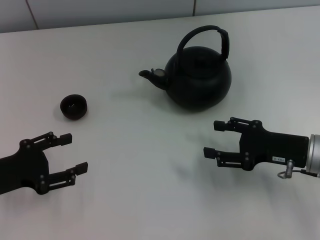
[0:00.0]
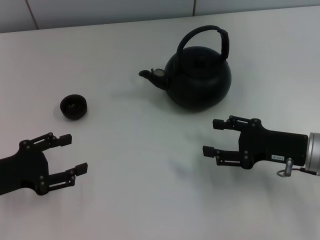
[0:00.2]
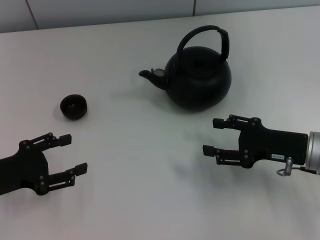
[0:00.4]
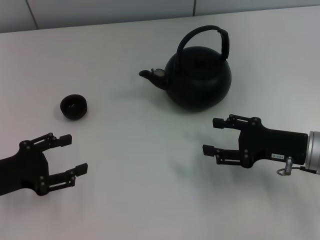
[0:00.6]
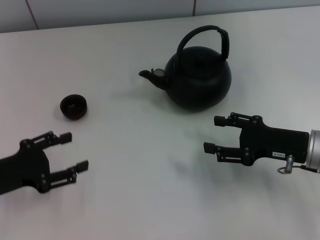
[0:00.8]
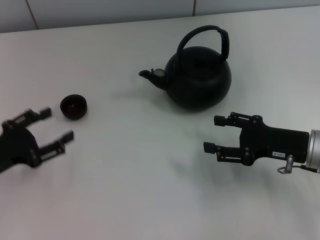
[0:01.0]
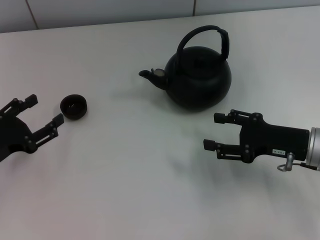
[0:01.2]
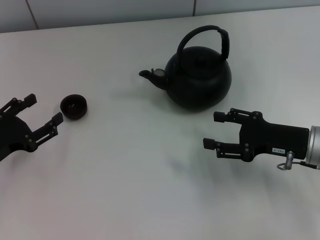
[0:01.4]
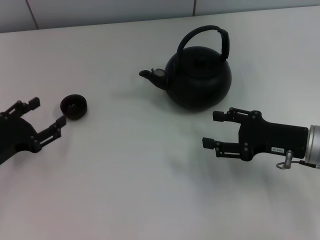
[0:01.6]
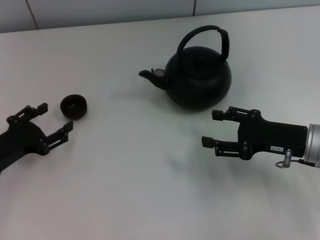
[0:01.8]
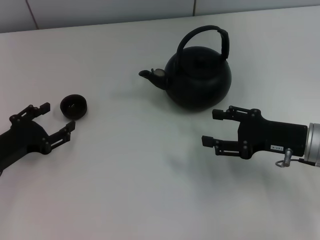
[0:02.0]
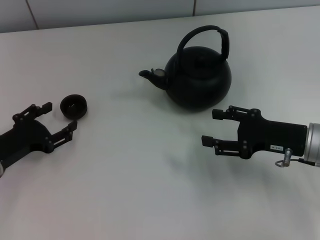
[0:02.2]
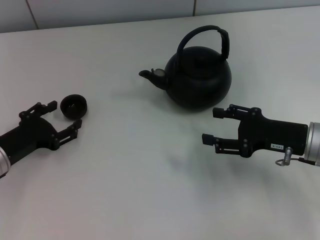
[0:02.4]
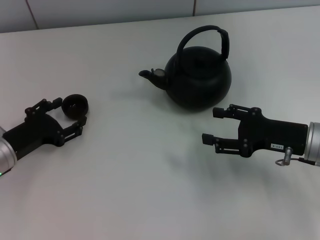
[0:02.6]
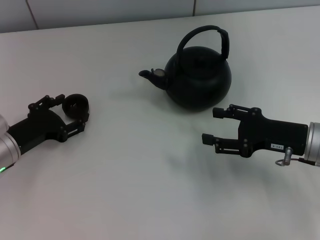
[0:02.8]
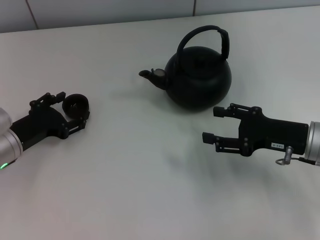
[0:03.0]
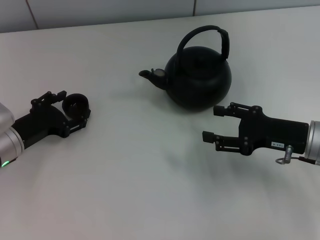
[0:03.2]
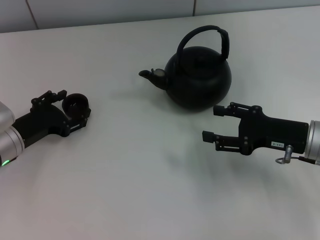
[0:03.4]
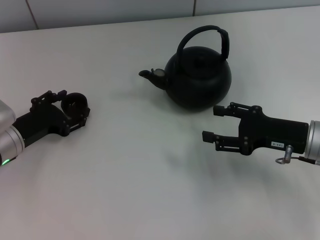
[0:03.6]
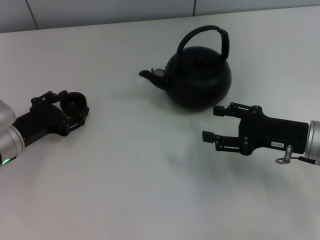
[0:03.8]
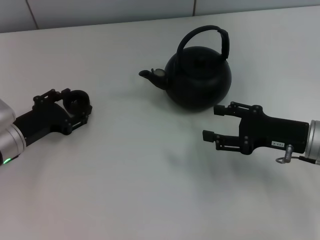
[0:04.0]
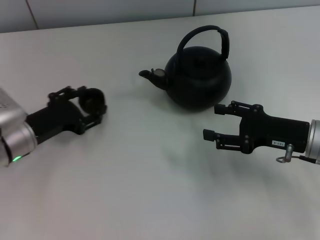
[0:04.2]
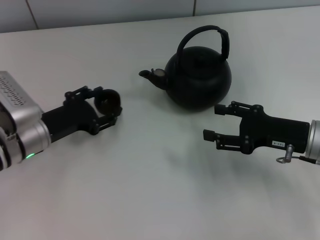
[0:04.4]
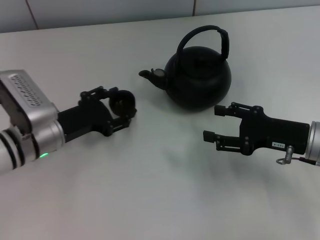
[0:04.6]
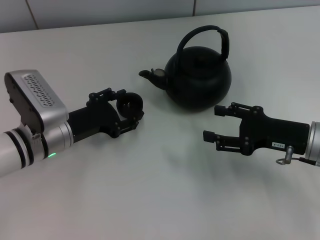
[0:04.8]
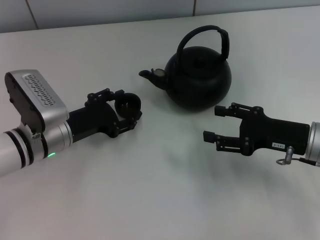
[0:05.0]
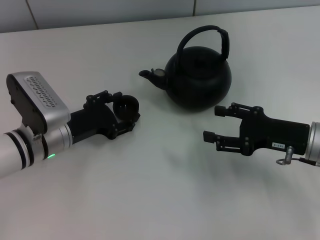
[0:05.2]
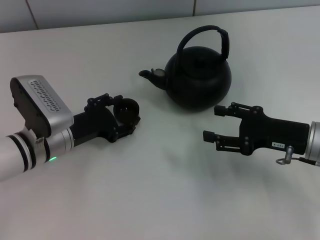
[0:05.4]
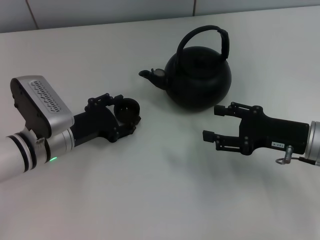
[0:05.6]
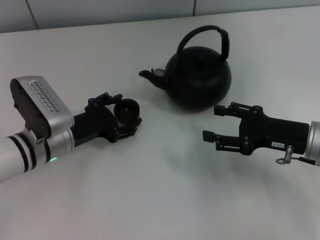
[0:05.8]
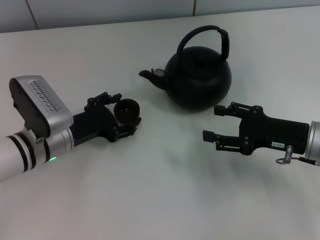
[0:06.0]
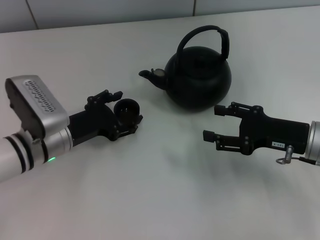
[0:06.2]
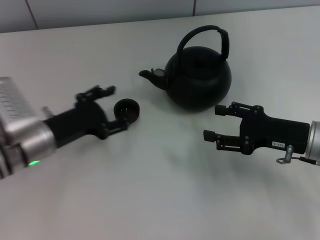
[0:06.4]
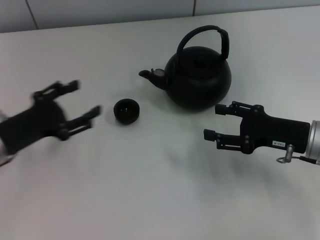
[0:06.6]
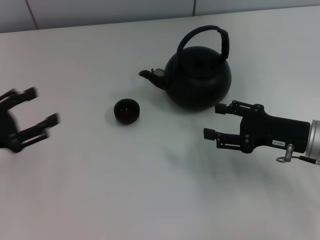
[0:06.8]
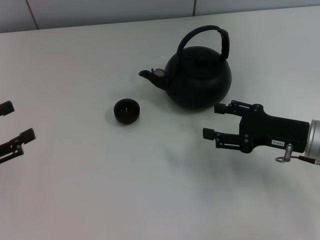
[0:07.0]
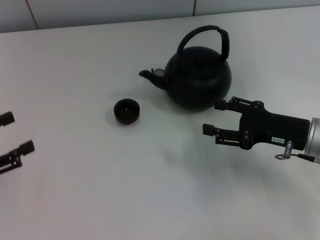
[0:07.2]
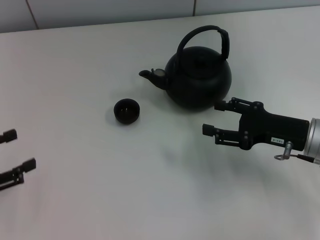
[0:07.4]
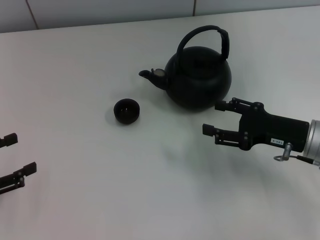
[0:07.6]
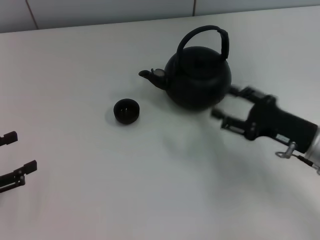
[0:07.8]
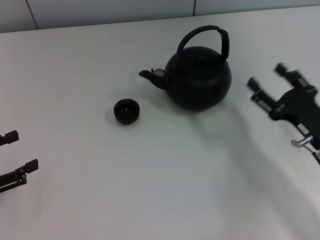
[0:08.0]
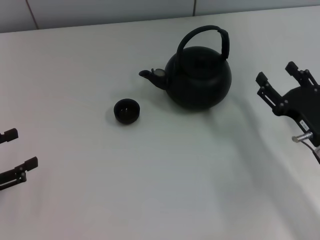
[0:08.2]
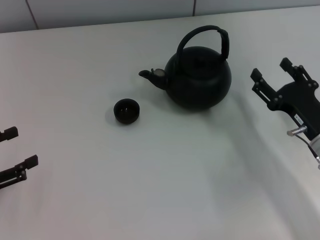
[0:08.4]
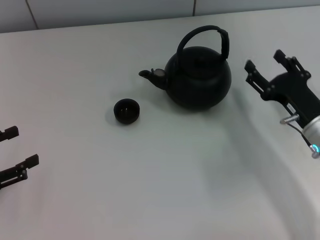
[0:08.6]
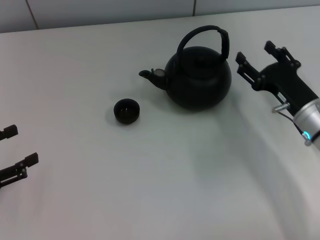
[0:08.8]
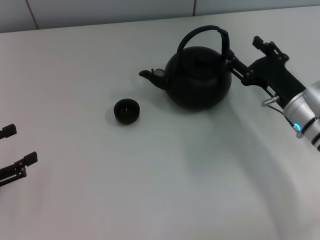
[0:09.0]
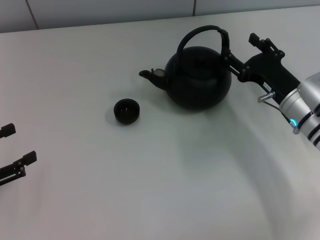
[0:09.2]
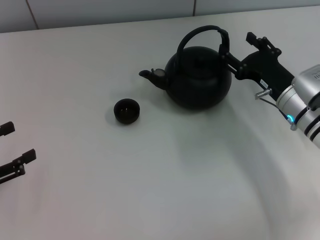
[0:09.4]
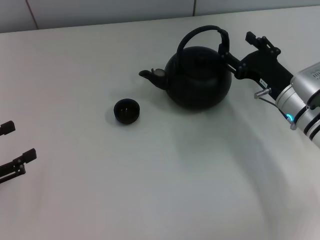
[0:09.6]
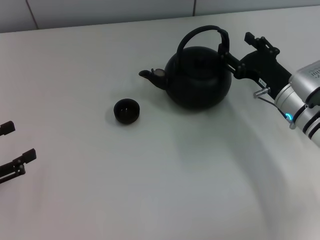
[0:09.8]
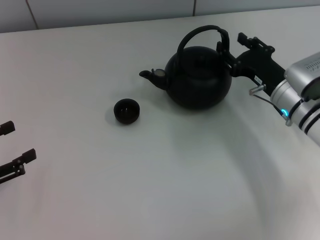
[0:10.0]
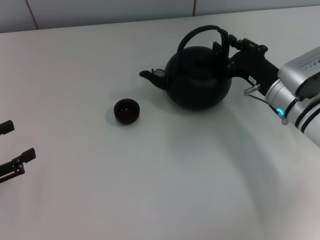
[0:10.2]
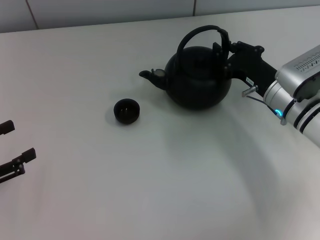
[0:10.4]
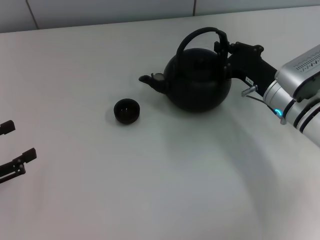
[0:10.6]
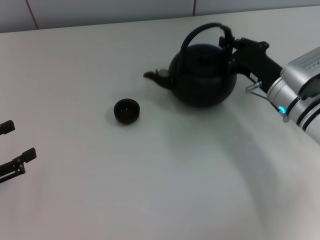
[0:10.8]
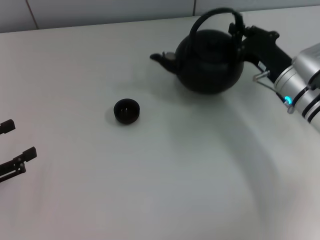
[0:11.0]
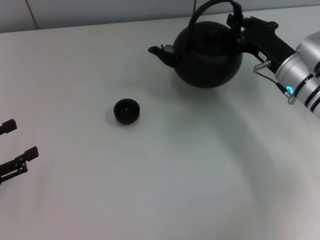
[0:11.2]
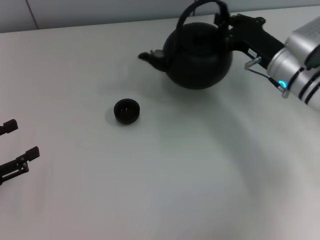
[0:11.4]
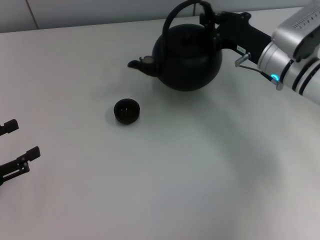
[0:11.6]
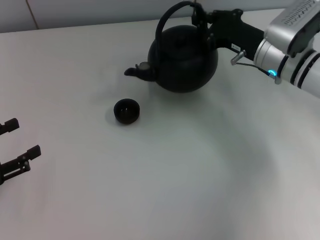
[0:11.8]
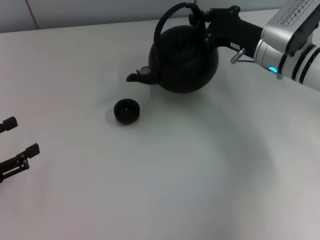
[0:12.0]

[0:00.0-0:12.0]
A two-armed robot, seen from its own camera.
Task of the whole recording: Grasp the handle of the teapot with one hand and pour tea into the teacup.
Step, 0.0 to 4.0 s: Pick up the teacup with the left gripper.
Step, 4.2 to 6.4 s: Place the teacup in the center of view with the left gripper.
Step, 6.6 to 11.0 s: Pick up the teapot with the right gripper.
1.6 to 3.0 s: The left gripper ends up roughly 5 cm from where it was.
3.0 to 4.4 s: There are only small adjustments of the grippers.
4.4 to 6.0 s: The grippers stay close to where they were, moving slightly.
6.0 to 7.6 s: The left gripper moves to the left and backward, approximately 20 cm.
9.0 to 10.4 s: The right gripper closes its fingers.
10.4 to 12.0 s: The right gripper heads forward and upward, covering roughly 10 cm, and closes.

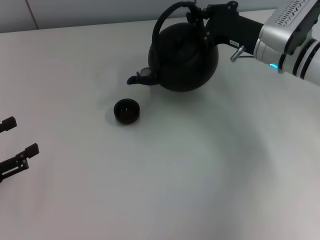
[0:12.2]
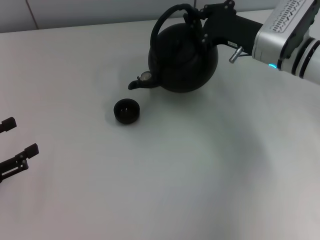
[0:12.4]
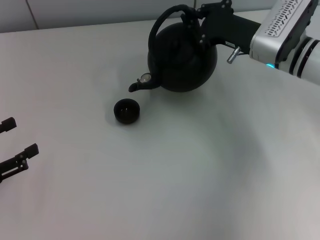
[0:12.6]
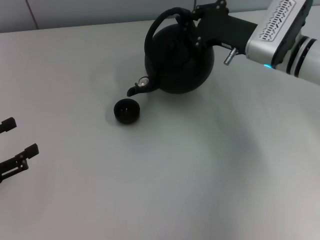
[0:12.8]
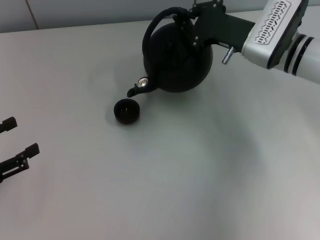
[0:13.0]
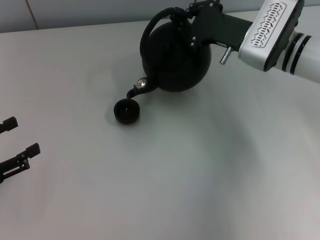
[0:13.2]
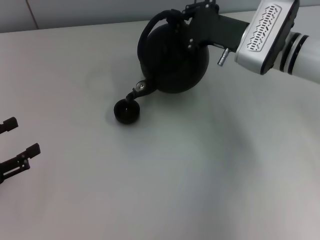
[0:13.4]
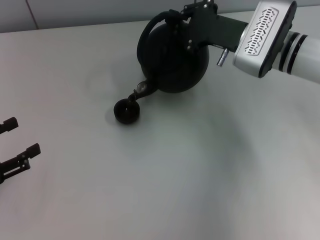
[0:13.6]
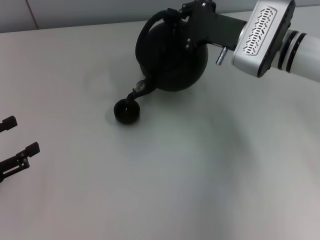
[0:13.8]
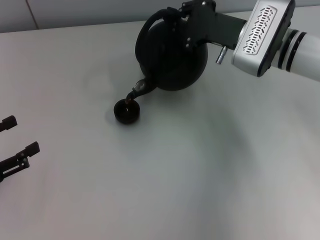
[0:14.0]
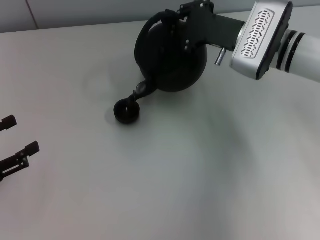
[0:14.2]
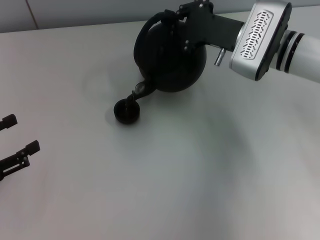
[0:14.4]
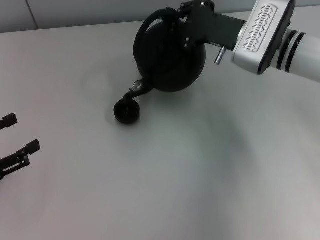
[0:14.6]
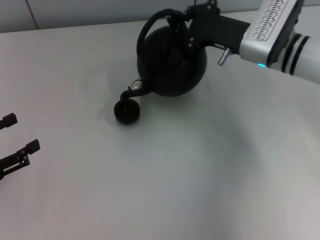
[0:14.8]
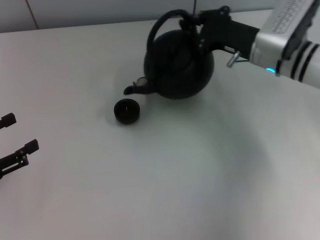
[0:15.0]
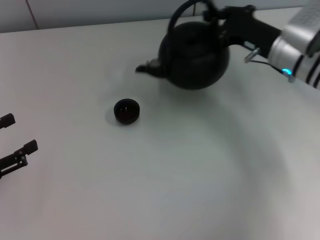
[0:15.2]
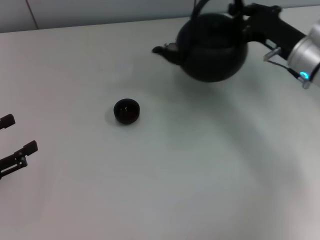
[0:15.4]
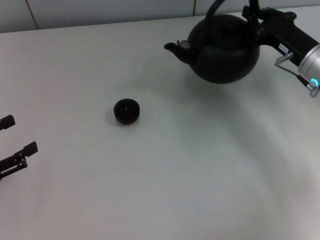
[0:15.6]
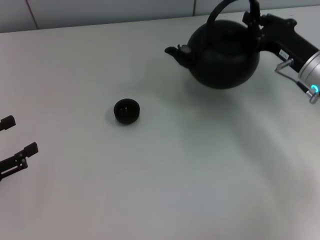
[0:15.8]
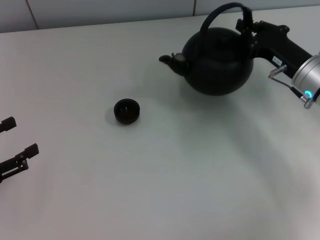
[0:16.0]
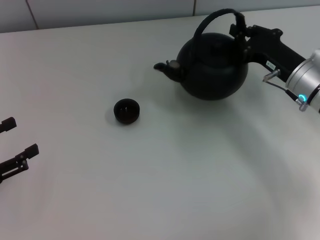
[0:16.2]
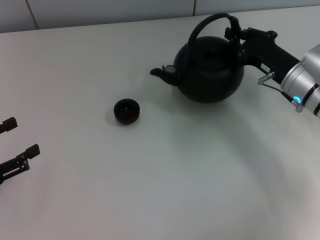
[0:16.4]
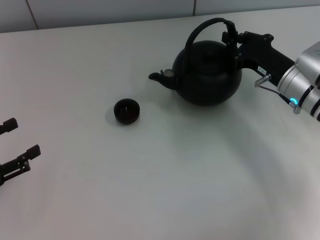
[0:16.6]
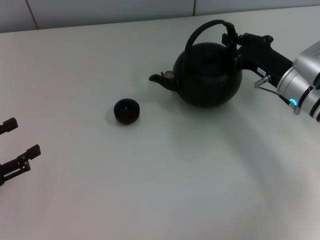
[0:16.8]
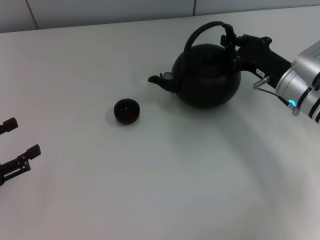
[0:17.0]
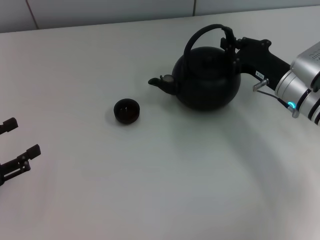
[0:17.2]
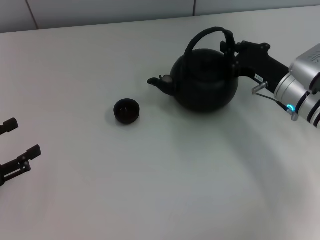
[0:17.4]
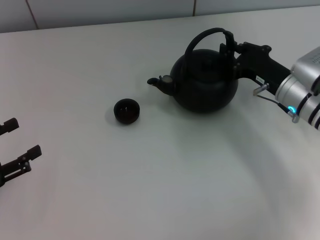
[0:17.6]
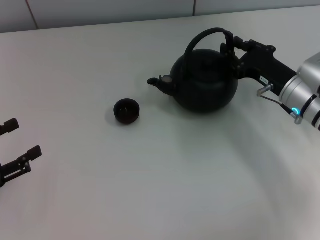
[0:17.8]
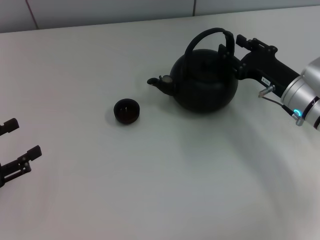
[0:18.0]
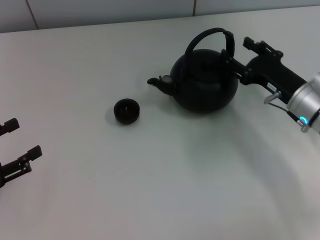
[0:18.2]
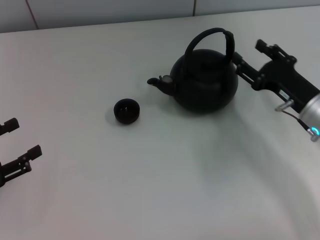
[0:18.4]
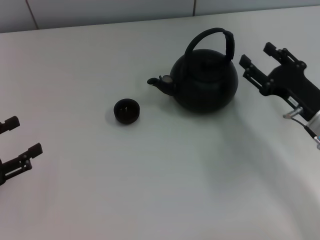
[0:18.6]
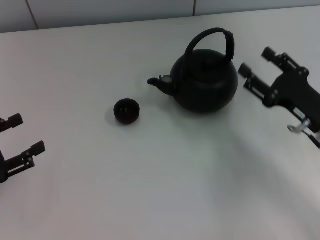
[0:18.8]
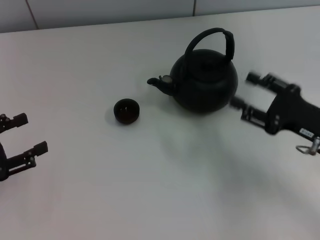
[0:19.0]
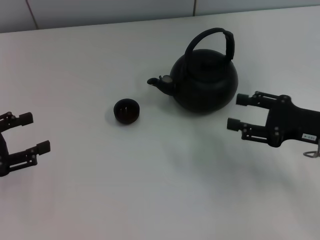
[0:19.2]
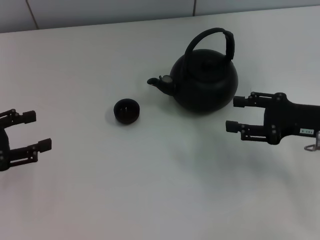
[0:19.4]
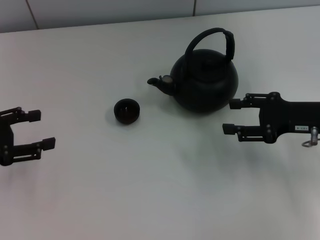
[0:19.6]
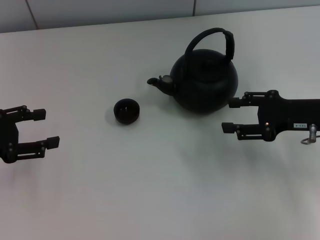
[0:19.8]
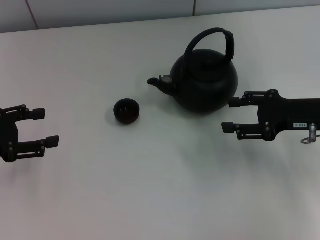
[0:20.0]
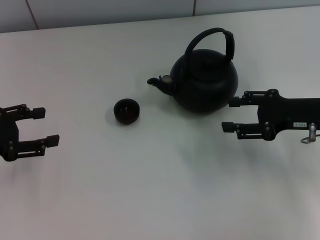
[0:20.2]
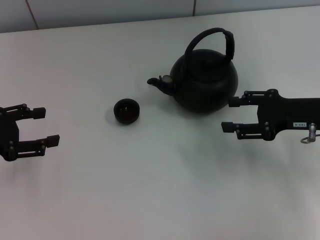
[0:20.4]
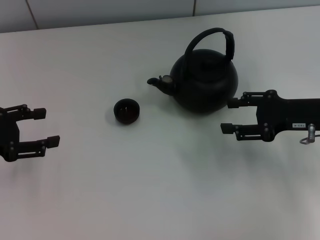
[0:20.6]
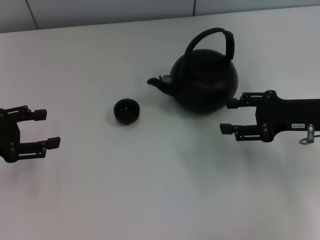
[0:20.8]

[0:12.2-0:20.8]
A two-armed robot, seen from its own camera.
Task of the whole recording: Grasp the handle of the teapot with one hand and pour tea into the teacup.
Step, 15.2 to 18.4 s: Put down the teapot with the right gripper.
15.0 to 16.6 s: The right gripper changes place by roughly 10 cm.
16.6 to 18.0 s: The grippers make only small movements.
18.0 to 19.4 s: The right gripper shifts approximately 10 cm backward and to the right, and opens its fingers. Meanwhile the left gripper is displaced forward by approximately 5 cm.
19.4 to 20.8 s: The grippers make only small movements.

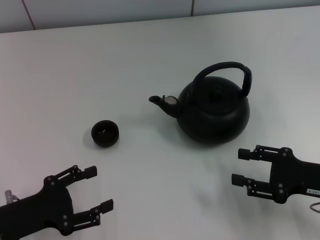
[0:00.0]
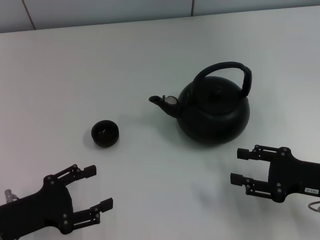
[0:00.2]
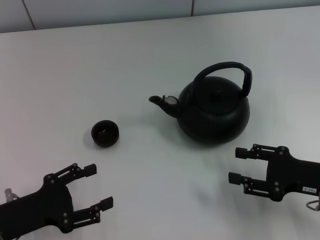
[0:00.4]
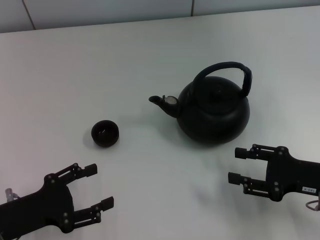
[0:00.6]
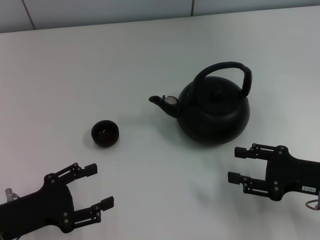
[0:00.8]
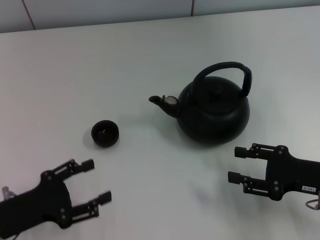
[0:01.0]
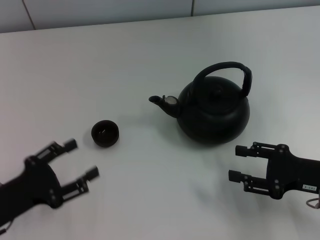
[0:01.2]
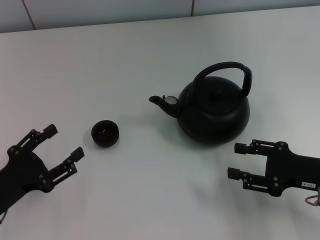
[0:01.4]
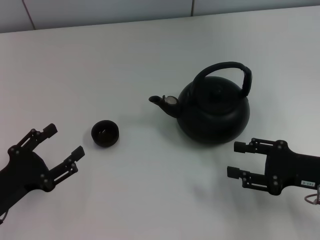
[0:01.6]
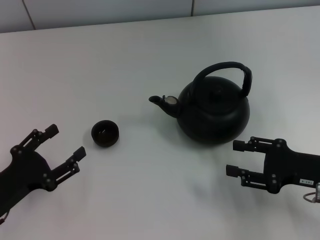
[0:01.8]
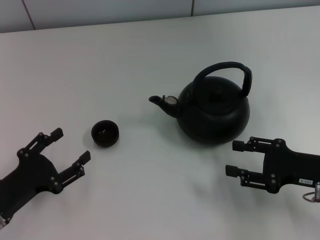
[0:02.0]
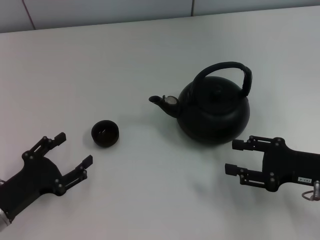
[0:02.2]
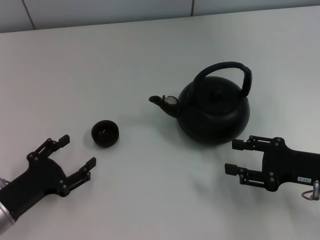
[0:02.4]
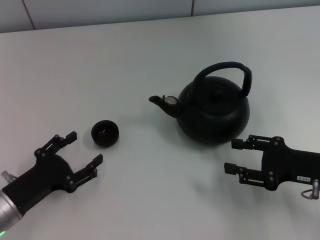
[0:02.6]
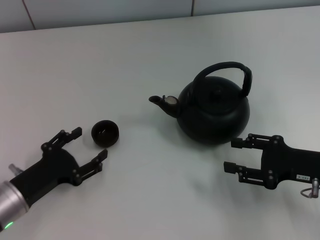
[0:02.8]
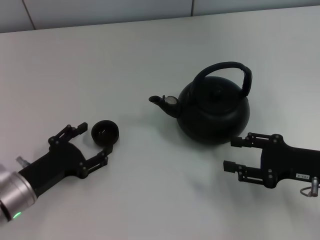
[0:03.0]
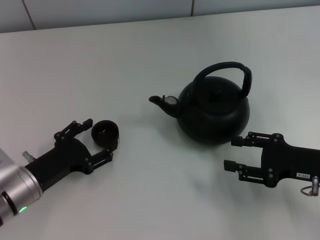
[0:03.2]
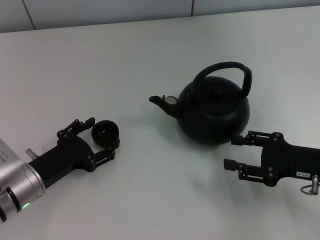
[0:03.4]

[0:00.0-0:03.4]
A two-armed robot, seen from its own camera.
Task of the whole recording: Grasp the handle of the teapot with one hand and pour tea into the teacup.
1.6 to 3.4 s: The left gripper heads forward and to the right, covering approximately 10 cm.
